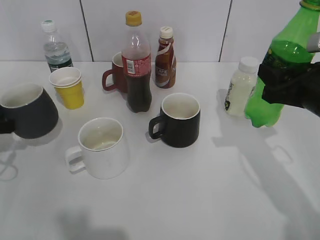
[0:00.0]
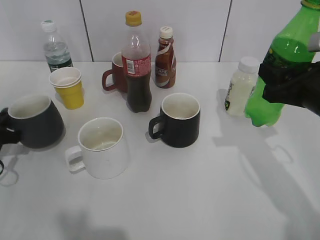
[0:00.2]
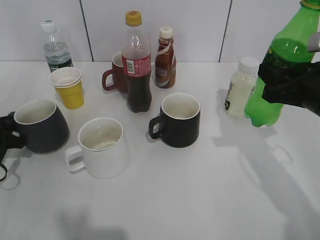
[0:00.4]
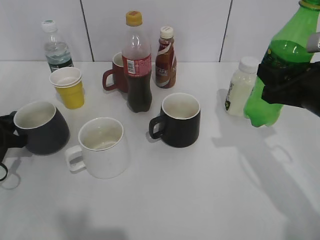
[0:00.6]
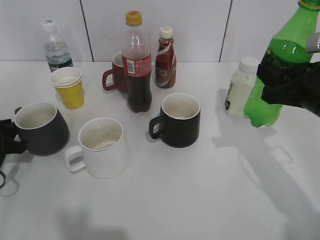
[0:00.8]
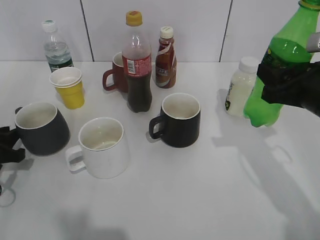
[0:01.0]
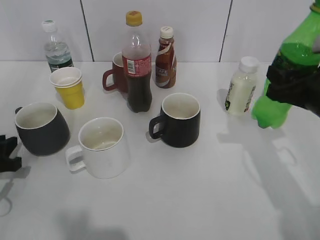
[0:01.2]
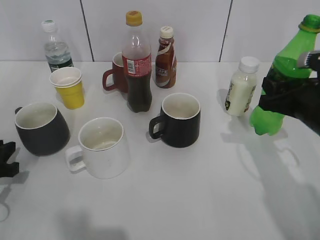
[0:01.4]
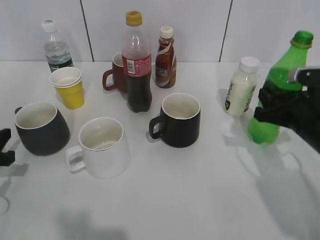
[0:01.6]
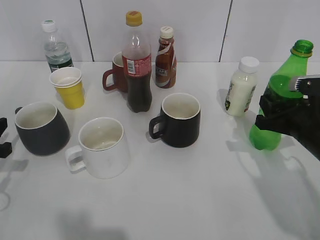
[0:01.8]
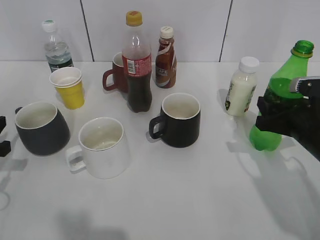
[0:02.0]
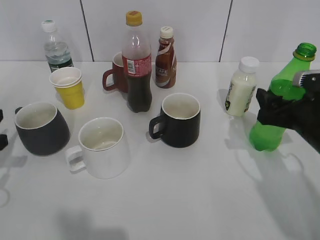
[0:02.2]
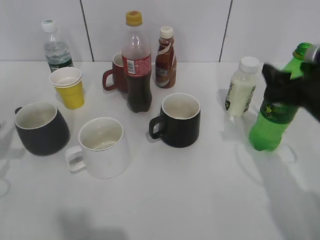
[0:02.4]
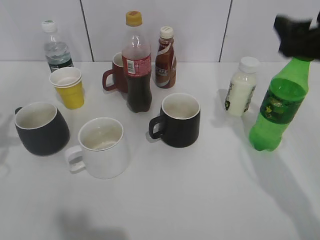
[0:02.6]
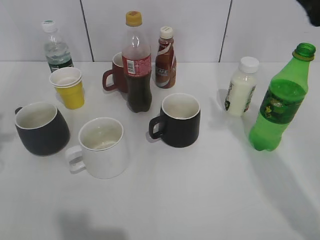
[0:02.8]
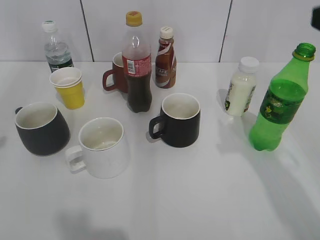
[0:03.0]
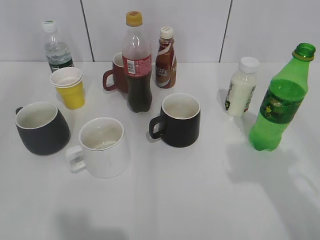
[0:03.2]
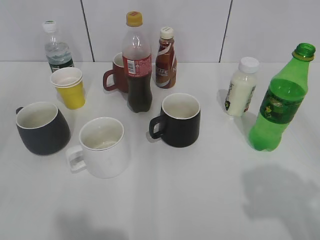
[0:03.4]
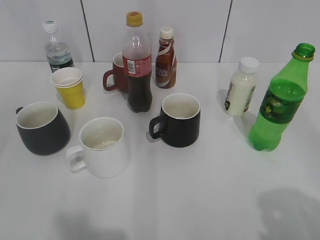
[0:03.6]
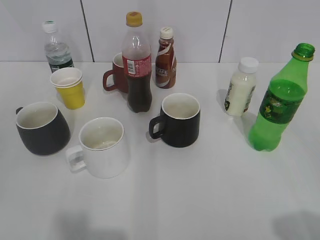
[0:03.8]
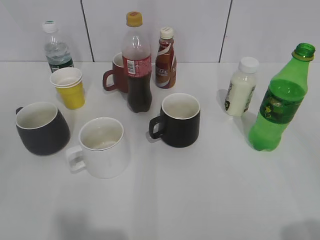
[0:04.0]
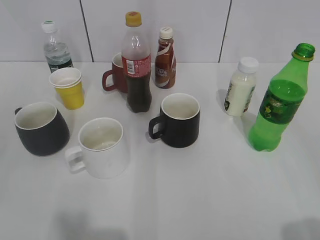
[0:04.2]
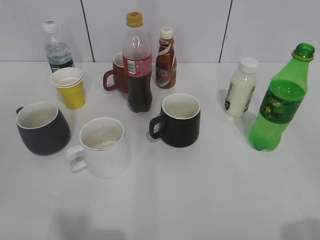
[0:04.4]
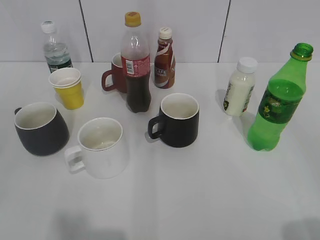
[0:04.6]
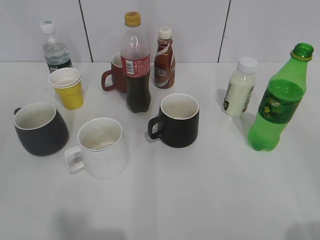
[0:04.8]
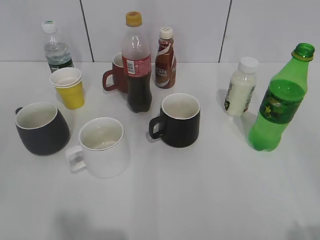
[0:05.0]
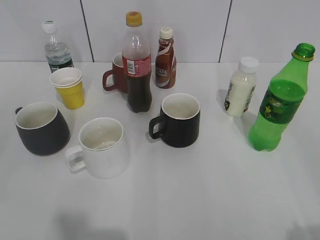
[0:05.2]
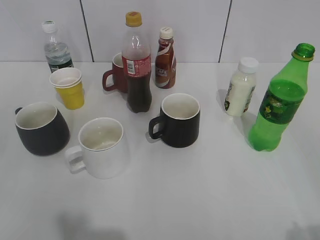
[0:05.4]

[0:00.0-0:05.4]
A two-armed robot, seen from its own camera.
Step, 0:01.2 to 0:02.2: Place the sprite bottle on the table with right gripper.
0:00.0 to 0:01.4: The left gripper heads backward, covering about 5 cm, and opens.
0:01.4 to 0:02.8: The two grippers go some 15 cm upward. The right gripper opens.
0:02.8 to 0:04.0: The right gripper is displaced backward by approximately 25 cm.
